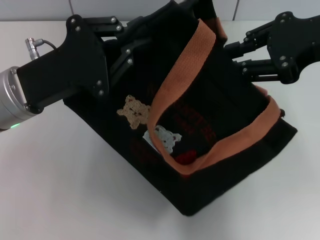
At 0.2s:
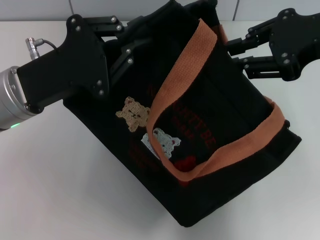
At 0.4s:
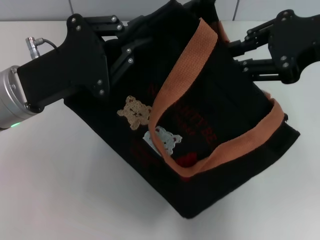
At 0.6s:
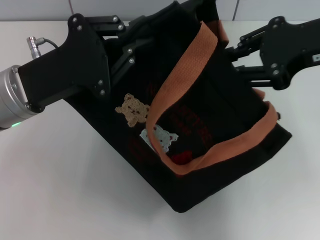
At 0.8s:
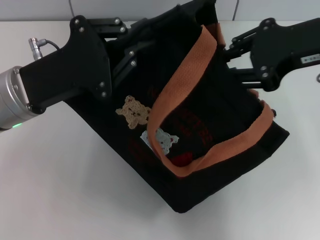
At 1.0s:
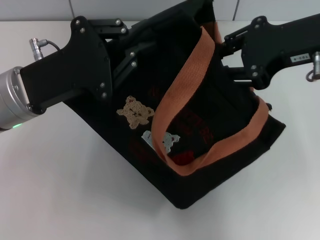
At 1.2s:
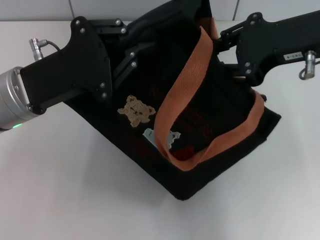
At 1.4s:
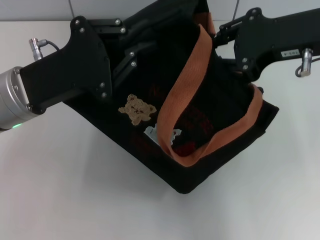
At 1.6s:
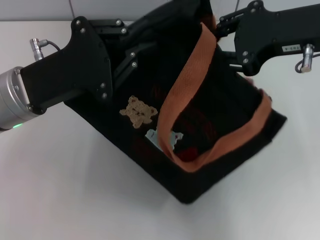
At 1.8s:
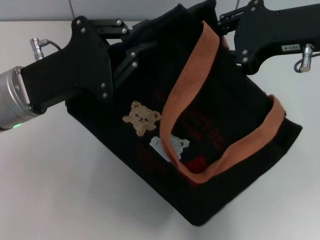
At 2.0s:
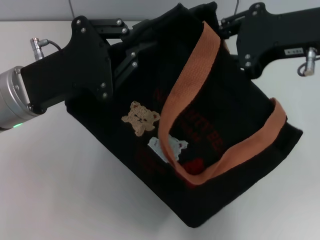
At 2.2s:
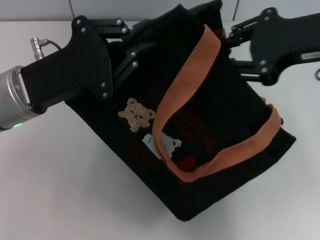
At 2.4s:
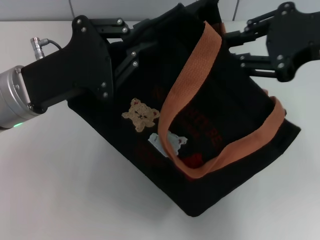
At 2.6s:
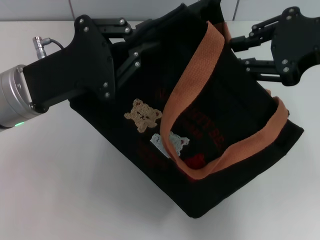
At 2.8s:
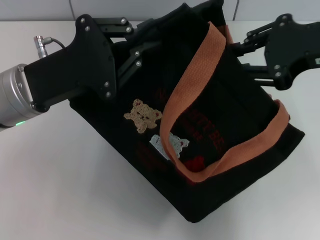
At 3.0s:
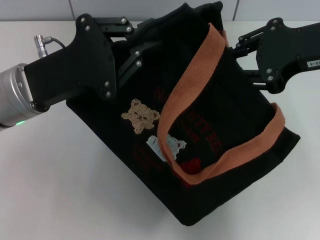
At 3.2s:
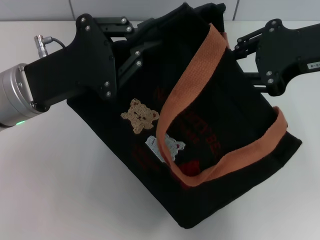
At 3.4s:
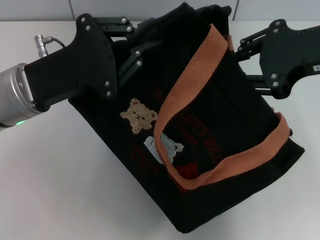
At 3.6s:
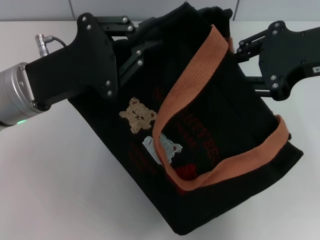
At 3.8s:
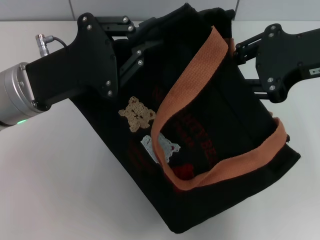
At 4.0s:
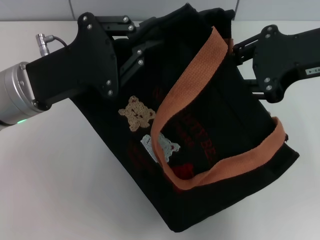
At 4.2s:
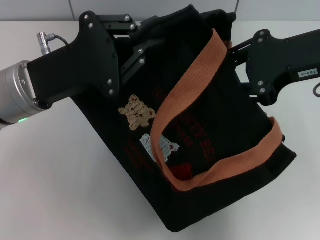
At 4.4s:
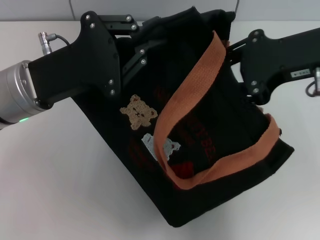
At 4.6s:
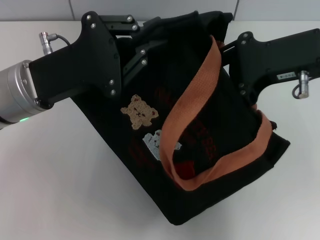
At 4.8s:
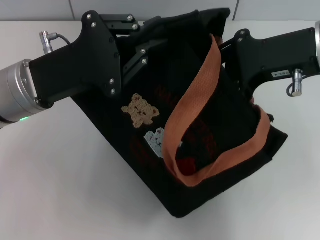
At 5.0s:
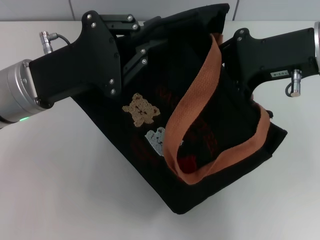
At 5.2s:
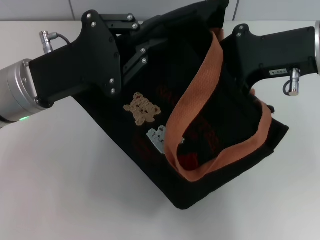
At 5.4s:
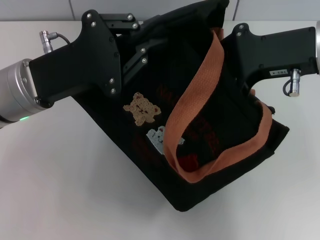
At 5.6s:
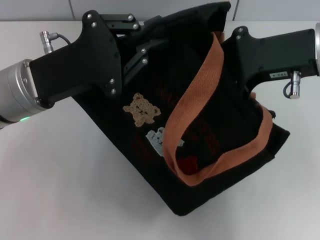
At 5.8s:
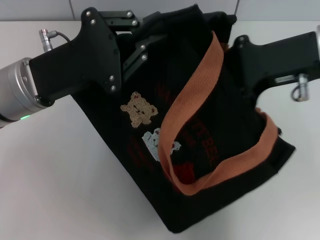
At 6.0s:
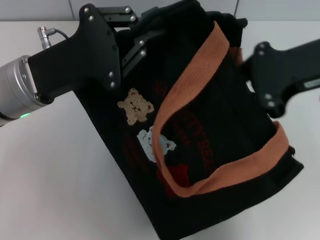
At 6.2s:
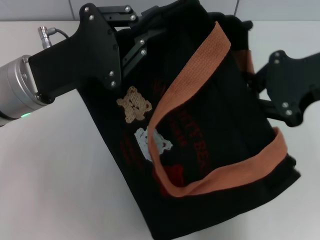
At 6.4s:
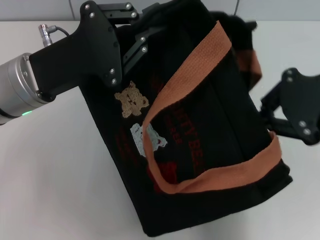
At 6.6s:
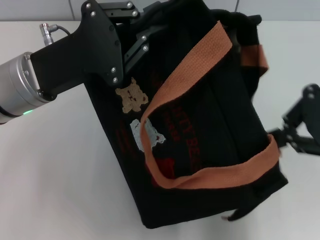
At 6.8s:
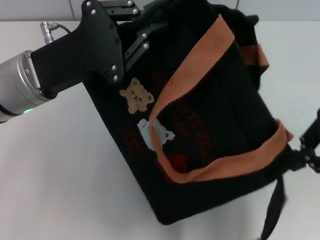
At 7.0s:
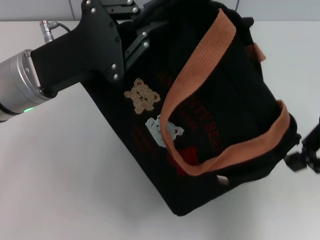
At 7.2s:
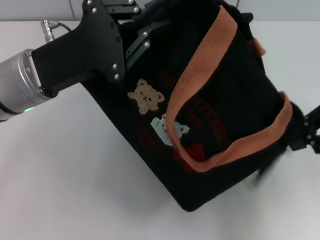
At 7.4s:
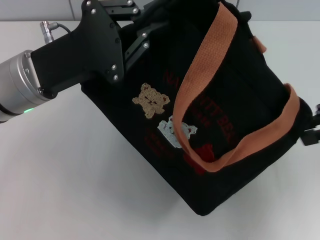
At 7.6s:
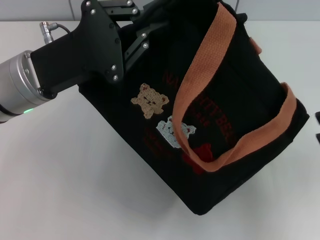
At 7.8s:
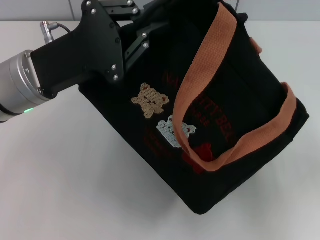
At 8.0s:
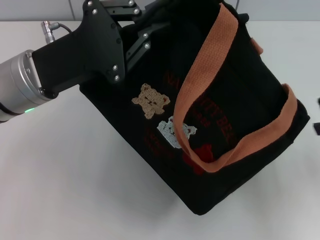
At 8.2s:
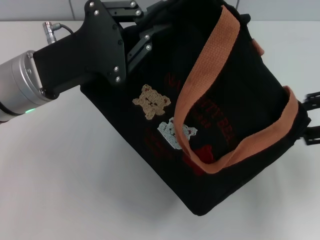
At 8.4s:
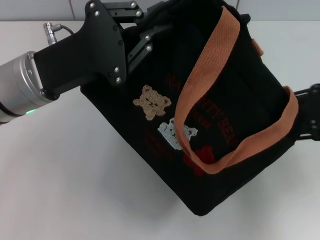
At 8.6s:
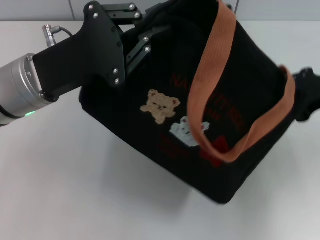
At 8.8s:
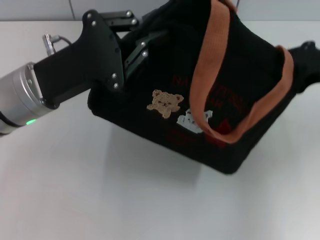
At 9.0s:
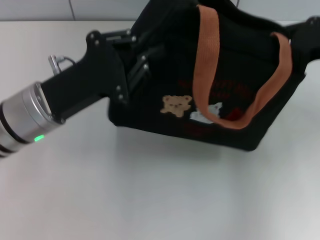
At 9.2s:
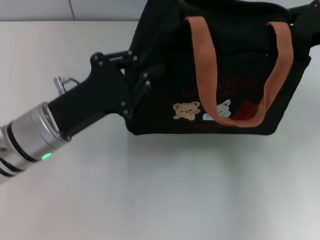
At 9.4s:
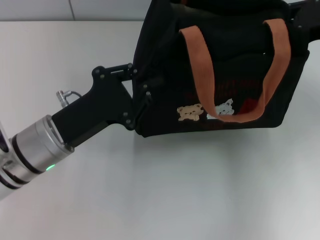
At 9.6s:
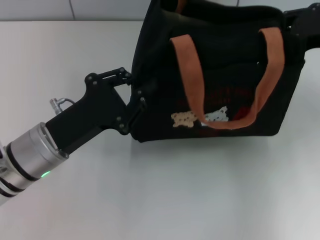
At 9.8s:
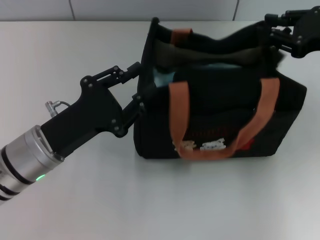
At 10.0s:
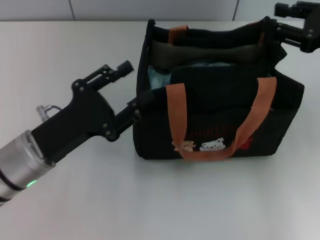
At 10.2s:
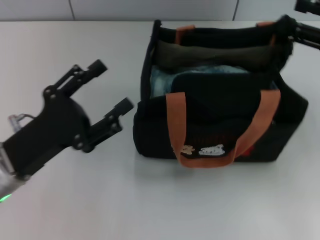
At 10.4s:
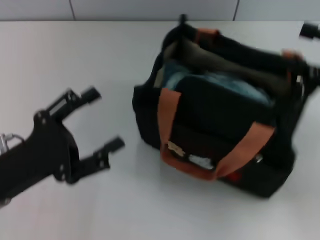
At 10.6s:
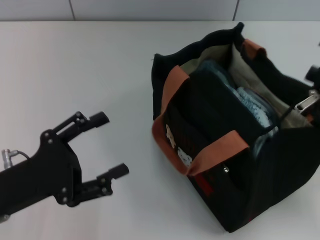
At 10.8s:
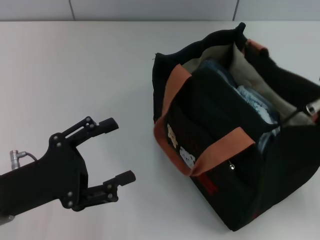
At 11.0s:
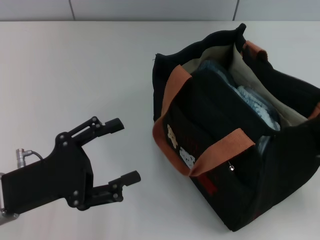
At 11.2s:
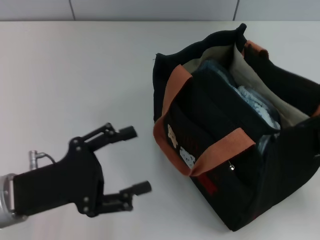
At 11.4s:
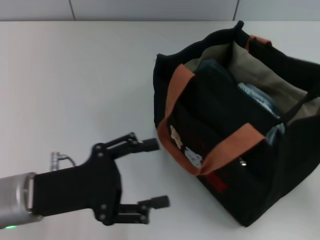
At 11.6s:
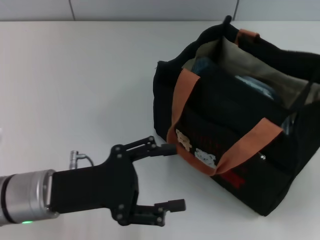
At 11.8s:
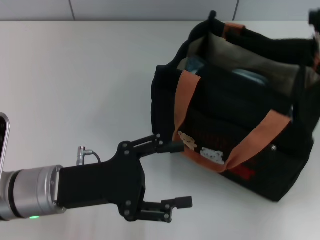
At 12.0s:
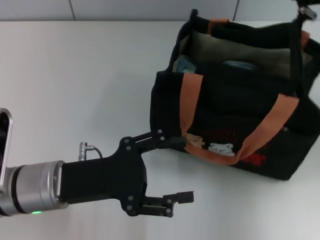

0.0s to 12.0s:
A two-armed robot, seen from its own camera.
Step, 0.0s to 7.2s: Pull open the zipper with your right hand.
Step, 7.6s to 9.8s: Grab the bag with your left hand.
0.0s to 1.6s: The grippers stay close to where they were, moving slightly.
3.0s to 4.4s: There are only small adjustments of the grippers.
4.4s to 6.0s: The right gripper closes its fingers.
6.0s to 7.6s: The right gripper heads to the right, covering some 10 cm.
7.6s to 9.0s: The right gripper shifts roughly 10 cm forward and to the left, and opens, then closes again.
9.0s to 10.4s: The right gripper goes some 10 cm backward, and opens its fingers, while the left gripper heads backward and to the left, covering roughly 10 cm, and opens.
10.4s to 12.0s: The right gripper travels forward and upward by approximately 15 cm, while the left gripper heads to the right, covering approximately 5 cm.

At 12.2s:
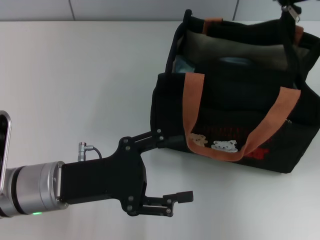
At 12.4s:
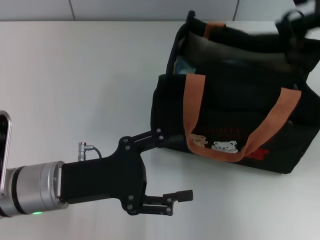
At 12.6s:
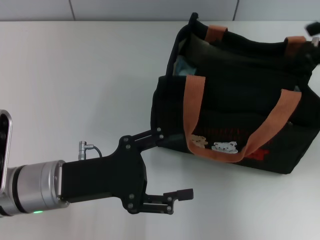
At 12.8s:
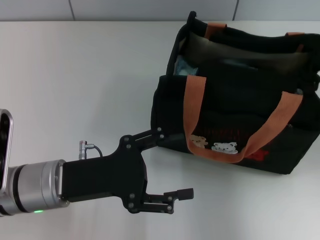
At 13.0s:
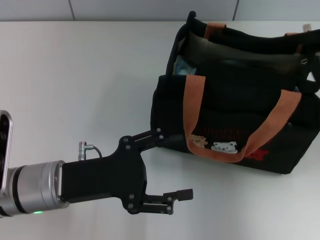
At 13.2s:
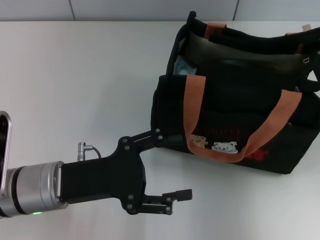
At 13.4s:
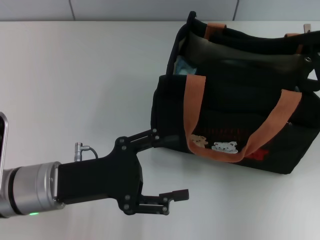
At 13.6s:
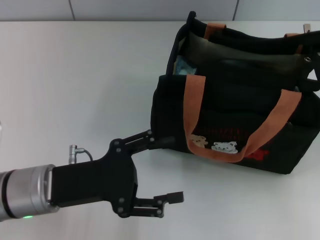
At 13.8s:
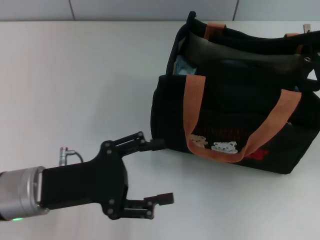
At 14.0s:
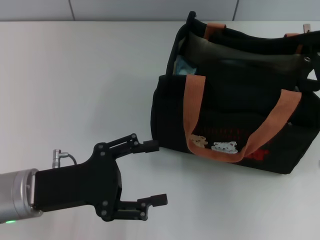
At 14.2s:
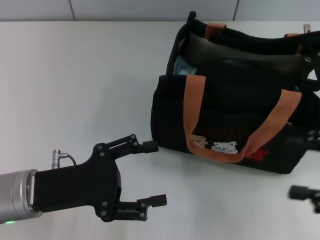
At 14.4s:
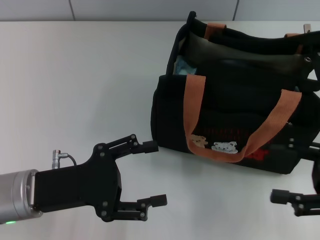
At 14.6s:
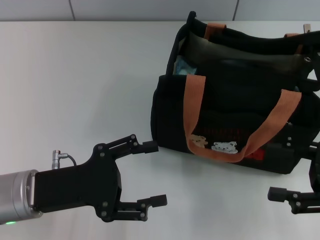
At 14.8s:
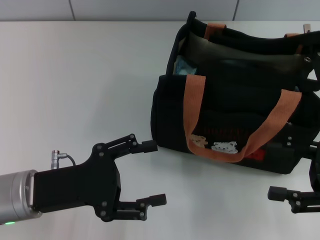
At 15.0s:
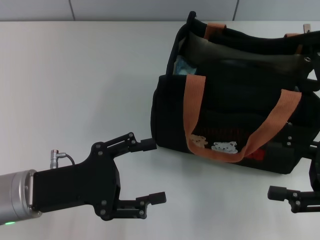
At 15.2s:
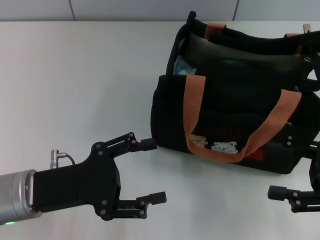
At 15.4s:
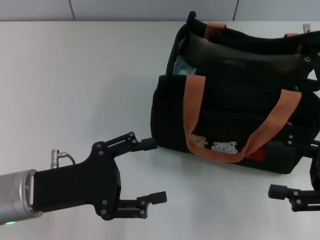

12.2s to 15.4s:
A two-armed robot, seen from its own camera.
12.2s to 13.8s: The right gripper travels backward, to the right and downward by roughly 20 cm.
13.8s to 15.4s: The right gripper travels downward and to the left by roughly 10 cm.

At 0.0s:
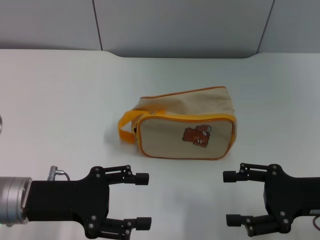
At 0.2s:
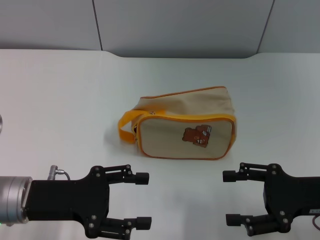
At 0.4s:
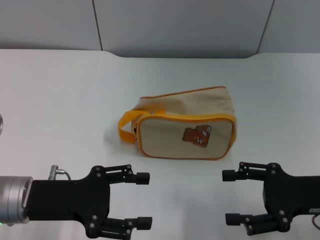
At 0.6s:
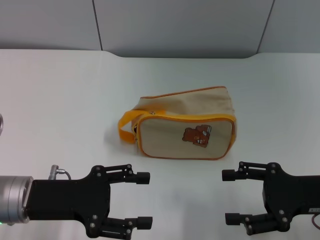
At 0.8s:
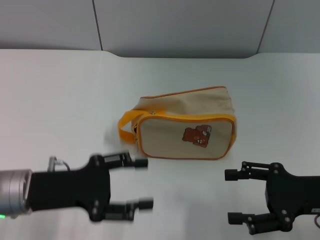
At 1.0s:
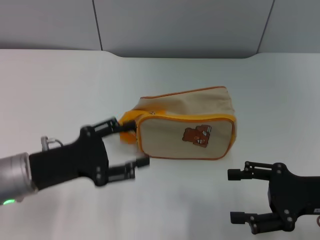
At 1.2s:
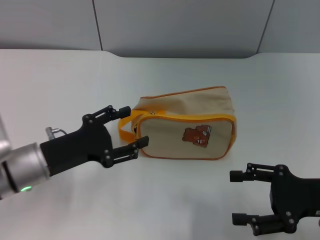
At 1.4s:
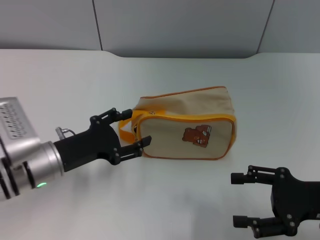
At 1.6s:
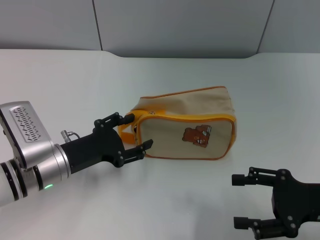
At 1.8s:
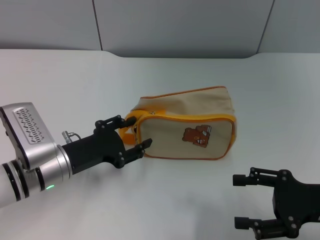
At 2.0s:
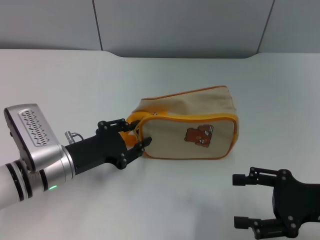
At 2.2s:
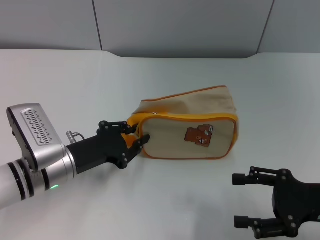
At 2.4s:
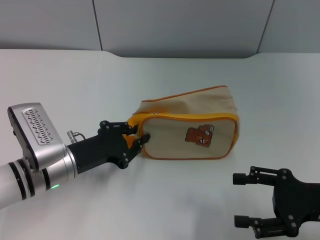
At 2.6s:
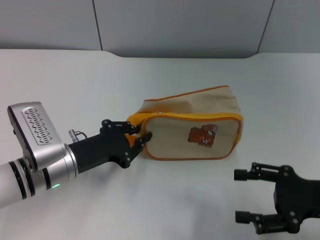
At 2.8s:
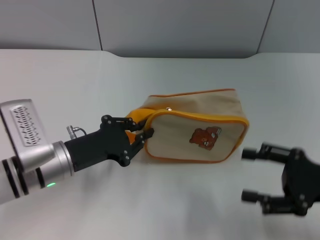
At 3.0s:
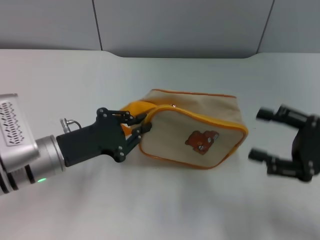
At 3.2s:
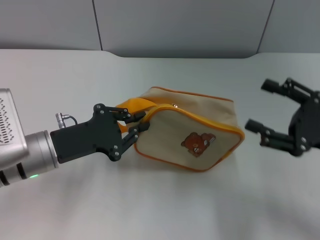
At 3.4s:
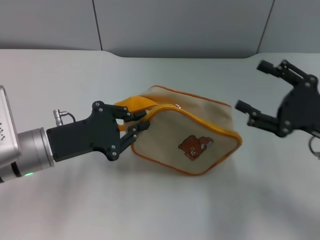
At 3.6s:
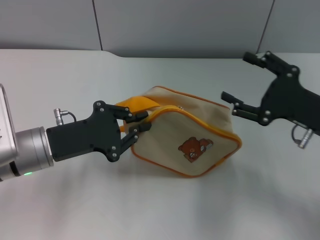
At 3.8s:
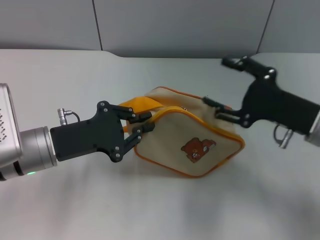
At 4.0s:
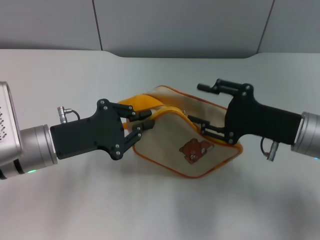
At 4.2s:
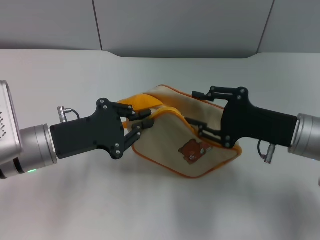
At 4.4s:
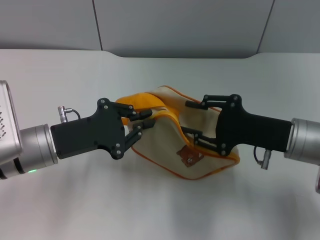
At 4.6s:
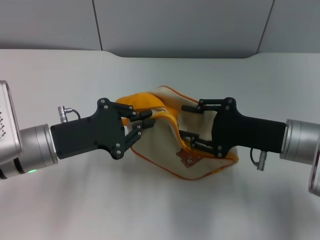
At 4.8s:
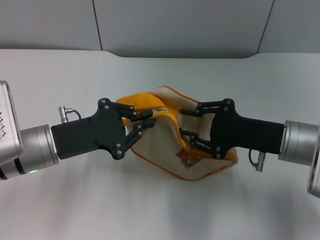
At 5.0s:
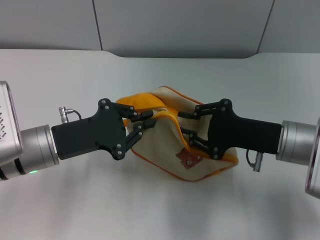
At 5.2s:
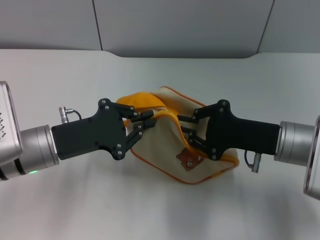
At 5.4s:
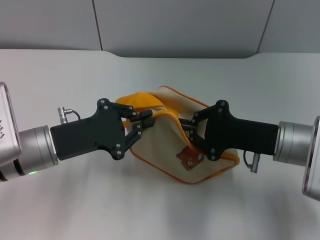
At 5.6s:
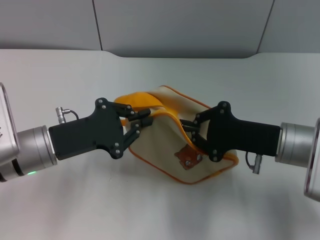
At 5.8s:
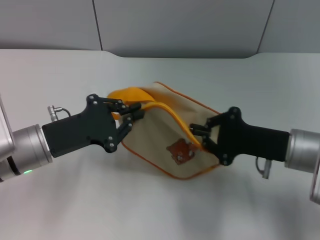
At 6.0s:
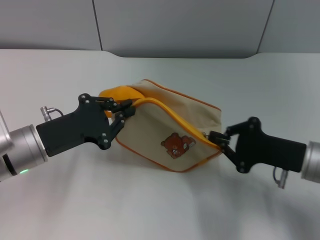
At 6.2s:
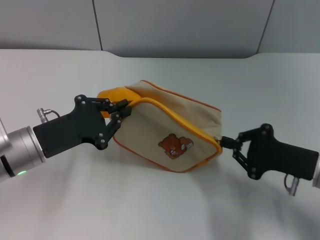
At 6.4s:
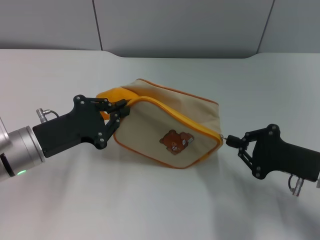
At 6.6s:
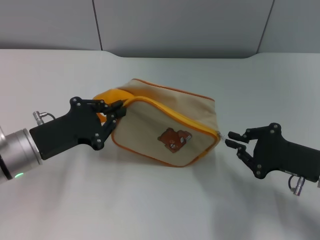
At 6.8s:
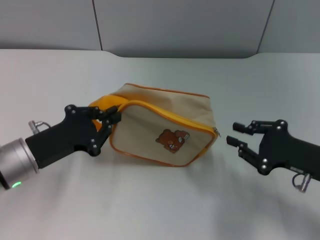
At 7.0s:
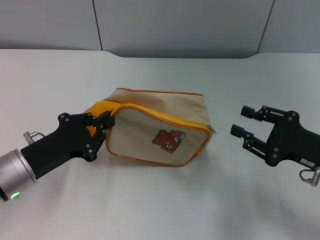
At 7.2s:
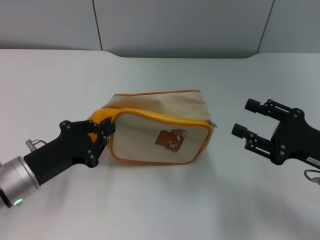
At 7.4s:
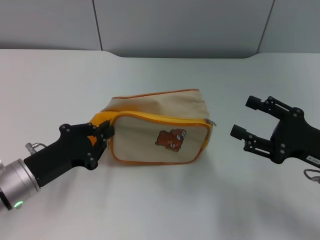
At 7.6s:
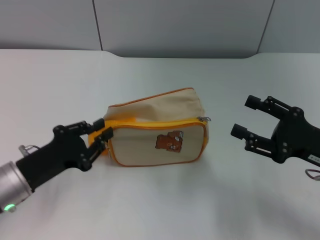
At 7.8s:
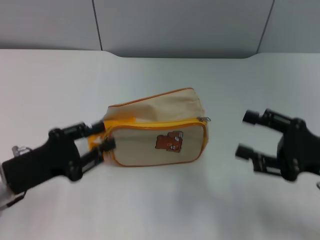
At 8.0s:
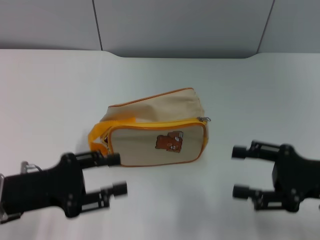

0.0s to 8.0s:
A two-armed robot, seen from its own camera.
Step, 0.0s to 3.0s: Pick up the bag with left gripper.
Step, 3.2s to 6.6s: Unzip the zipper of bag with right gripper.
Step, 6.8s to 7.6s: Place the bag on the table with left gripper.
0.0s to 1.6s: The left gripper moves forward, roughly 5 cm.
1.6s to 3.2s: The left gripper closes its fingers.
3.2s to 4.8s: The right gripper goes about 10 cm to the left, and closes.
4.8s to 6.4s: The right gripper heads to the right, covering approximately 5 cm, and closes its fingers.
6.4s to 8.0s: The right gripper shifts by some 5 cm, and opens its fingers, while the left gripper moves backward, some 5 cm, and opens up.
